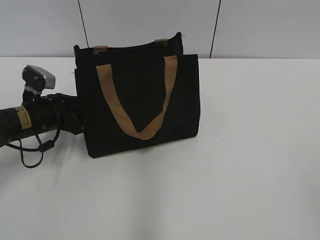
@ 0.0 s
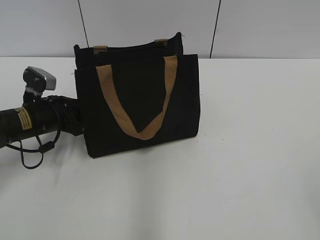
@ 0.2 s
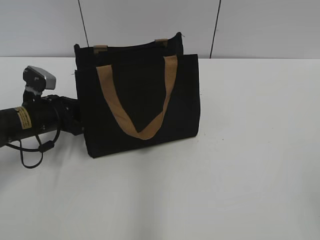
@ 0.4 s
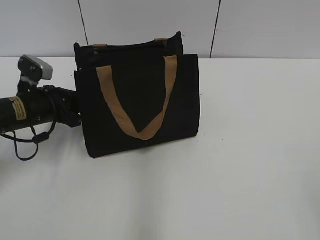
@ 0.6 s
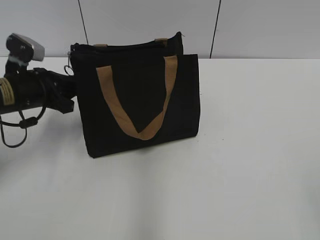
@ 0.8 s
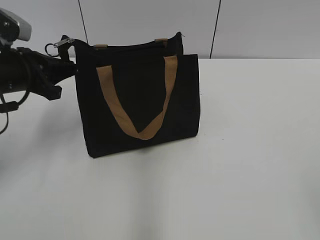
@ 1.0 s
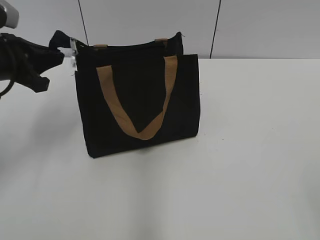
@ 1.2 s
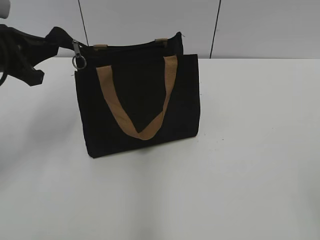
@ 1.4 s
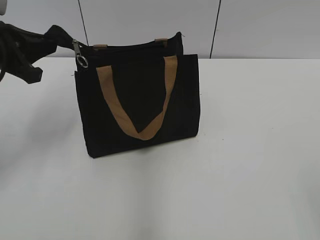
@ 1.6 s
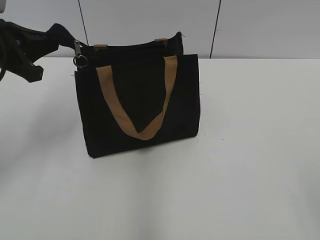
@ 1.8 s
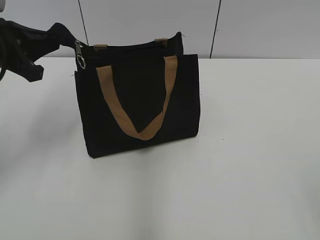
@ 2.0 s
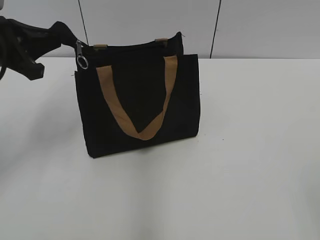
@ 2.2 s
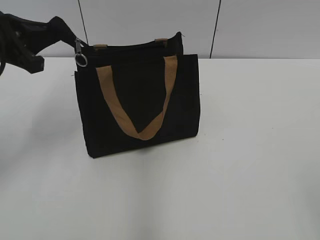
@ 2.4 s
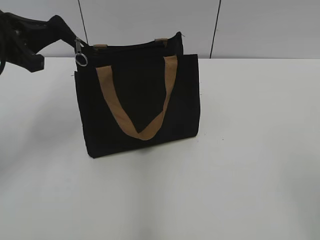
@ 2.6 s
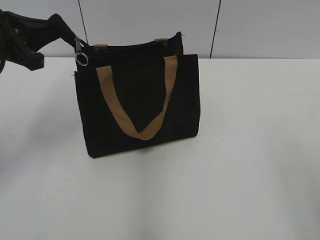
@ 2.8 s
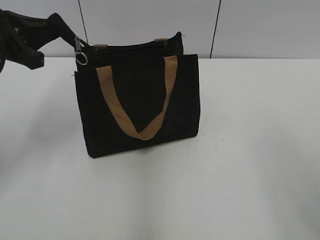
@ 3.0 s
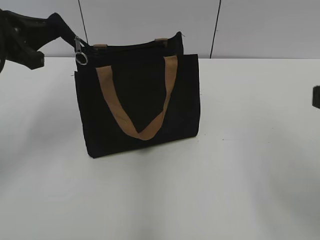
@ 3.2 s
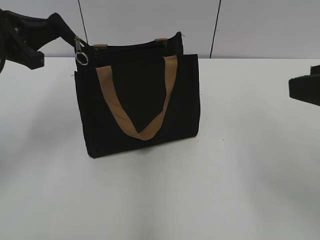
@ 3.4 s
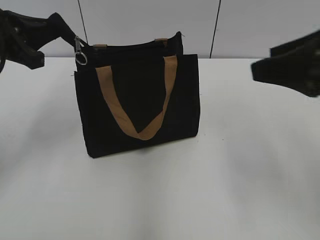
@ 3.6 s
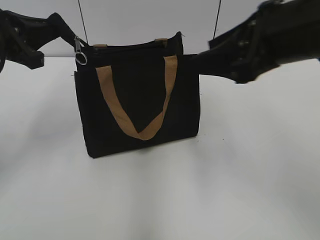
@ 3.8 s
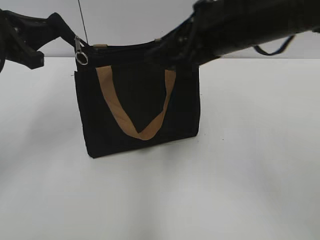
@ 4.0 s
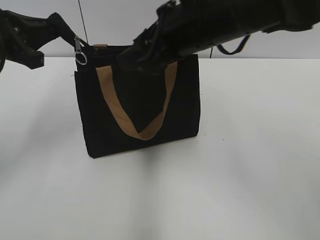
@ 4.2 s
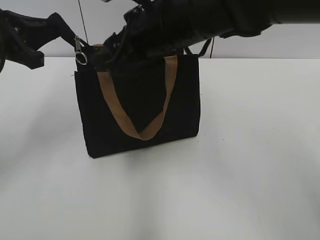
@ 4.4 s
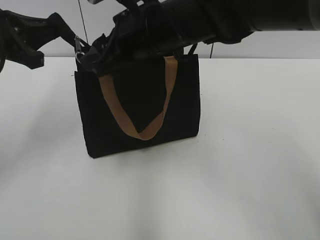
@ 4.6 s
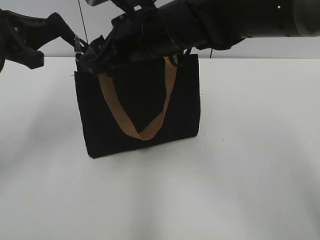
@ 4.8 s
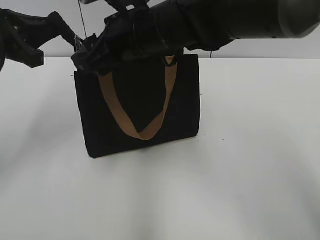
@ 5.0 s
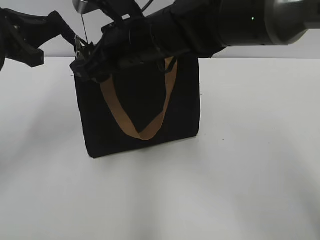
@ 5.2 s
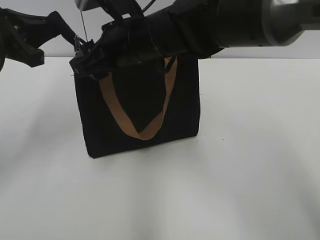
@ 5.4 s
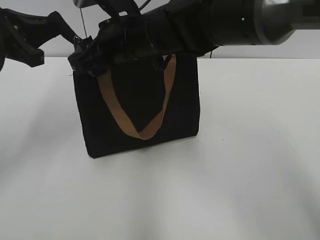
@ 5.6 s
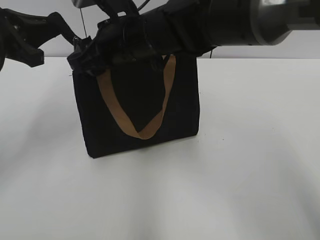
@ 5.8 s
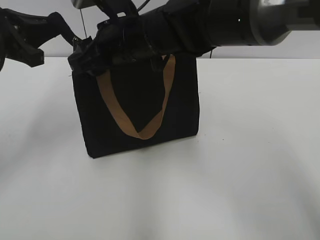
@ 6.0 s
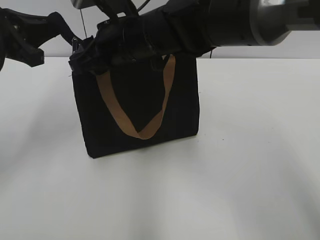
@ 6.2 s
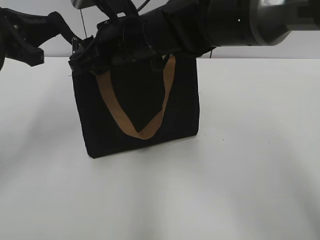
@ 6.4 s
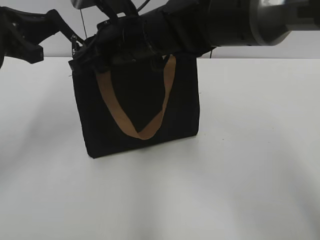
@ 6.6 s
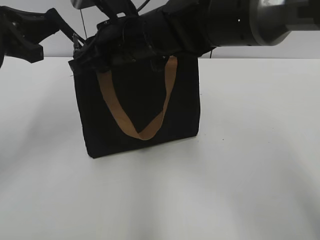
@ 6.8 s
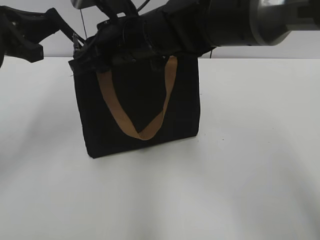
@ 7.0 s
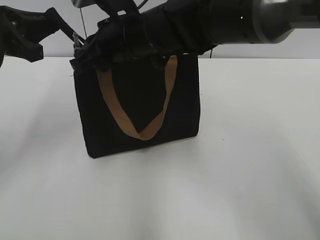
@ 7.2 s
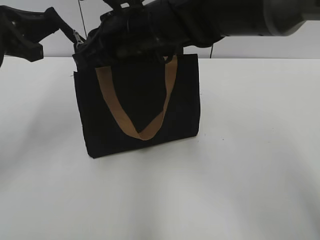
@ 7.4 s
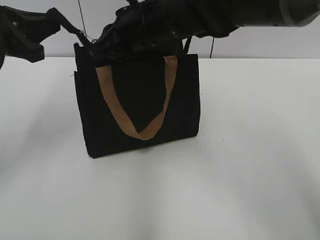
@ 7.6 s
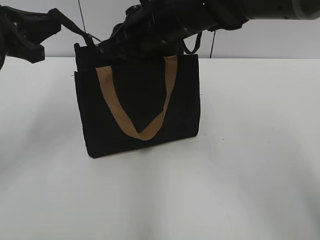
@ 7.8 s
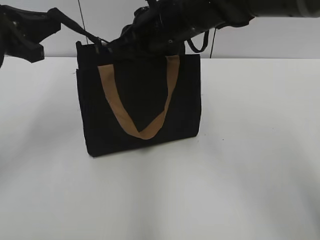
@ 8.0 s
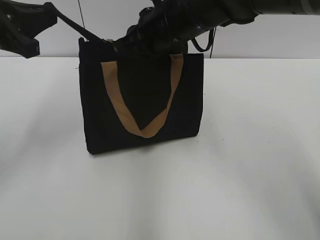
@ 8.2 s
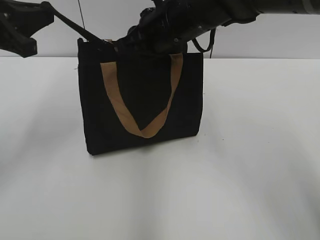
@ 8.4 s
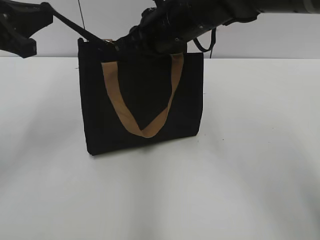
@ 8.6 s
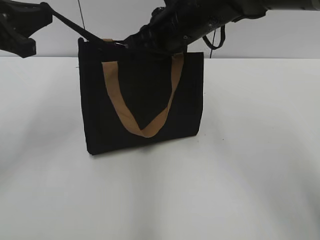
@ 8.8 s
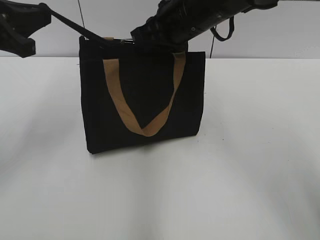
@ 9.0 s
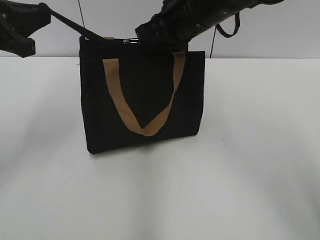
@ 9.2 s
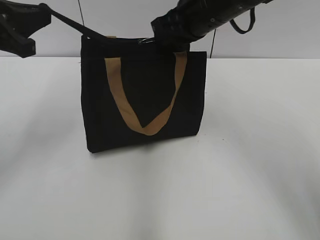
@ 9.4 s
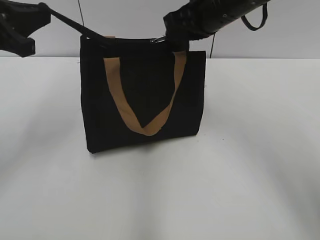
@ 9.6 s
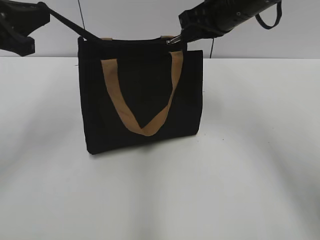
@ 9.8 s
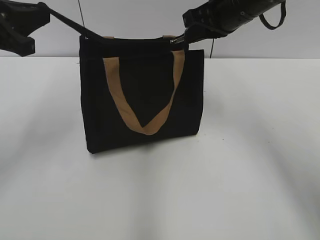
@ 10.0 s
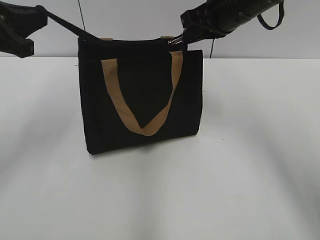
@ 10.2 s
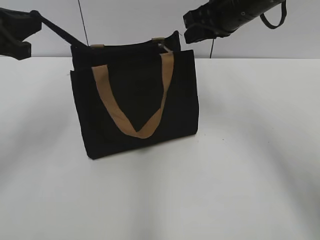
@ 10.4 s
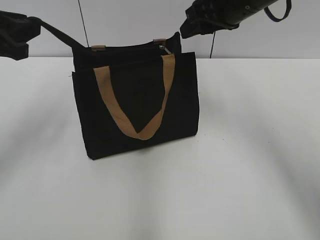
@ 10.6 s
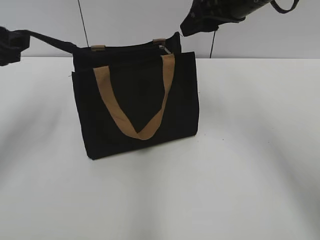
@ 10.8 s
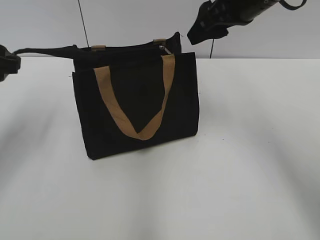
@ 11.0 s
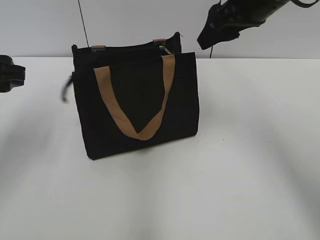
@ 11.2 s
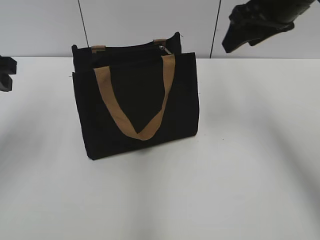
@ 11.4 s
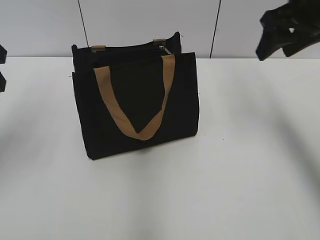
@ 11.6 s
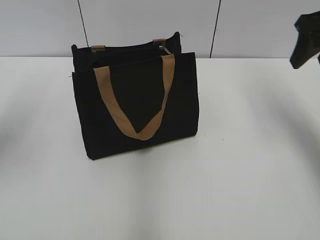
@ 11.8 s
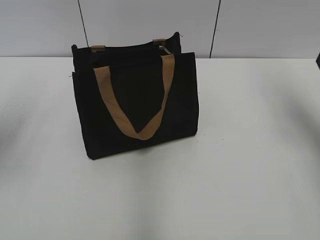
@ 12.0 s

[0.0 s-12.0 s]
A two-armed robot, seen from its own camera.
Step, 0.0 to 10.2 s: Zip up the bag with your right hand.
Step, 10.6 to 11.0 s: Grab the zipper with your left hand.
0.0 to 1.6 s: The left gripper goes about 15 cm upward, and closes its fingers.
3.0 to 4.4 s: The right gripper travels forward and to the left by some 35 cm.
4.4 to 6.0 s: The right gripper changes place by some 5 cm.
6.0 to 7.6 s: The right gripper closes its fingers.
7.6 to 9.0 s: The right gripper heads to the right, covering approximately 5 cm.
9.0 to 10.4 s: The right gripper travels to the right by about 5 cm.
10.4 to 12.0 s: The left gripper opens; the right gripper shifts about 20 cm to the right, and opens its fingers.

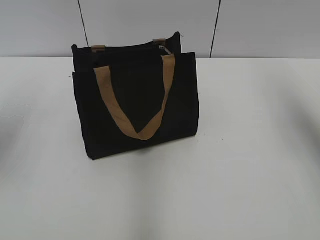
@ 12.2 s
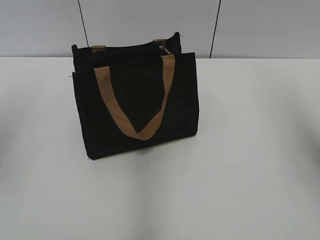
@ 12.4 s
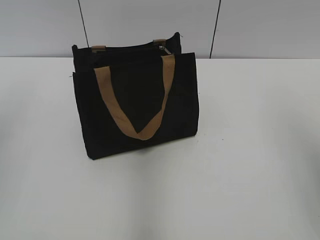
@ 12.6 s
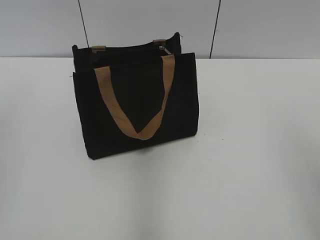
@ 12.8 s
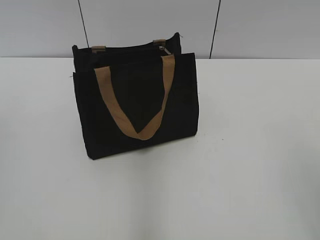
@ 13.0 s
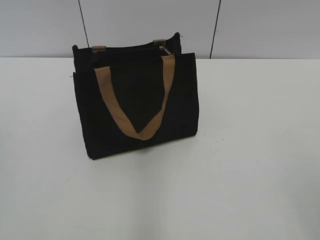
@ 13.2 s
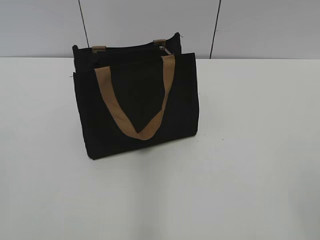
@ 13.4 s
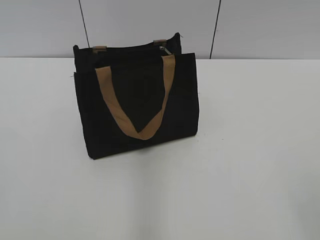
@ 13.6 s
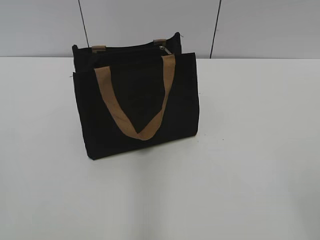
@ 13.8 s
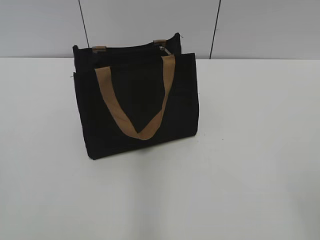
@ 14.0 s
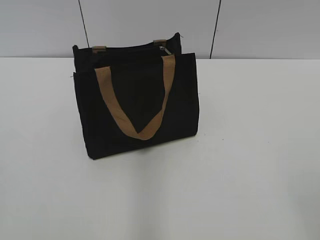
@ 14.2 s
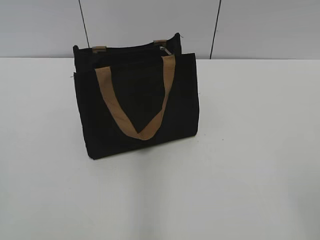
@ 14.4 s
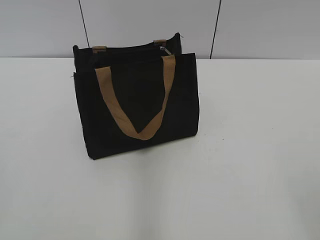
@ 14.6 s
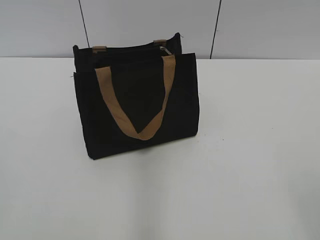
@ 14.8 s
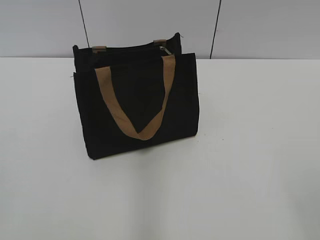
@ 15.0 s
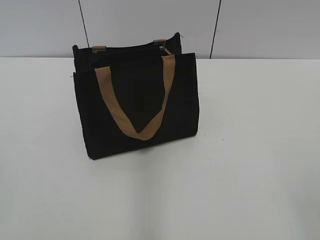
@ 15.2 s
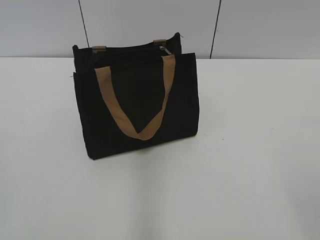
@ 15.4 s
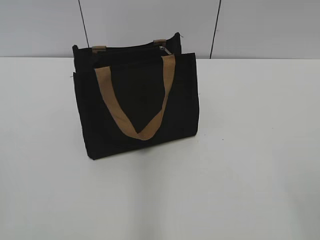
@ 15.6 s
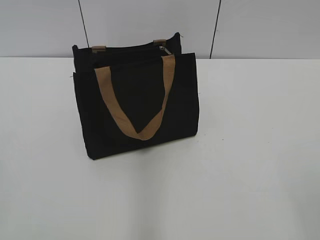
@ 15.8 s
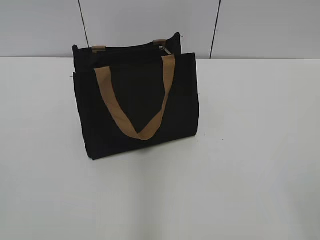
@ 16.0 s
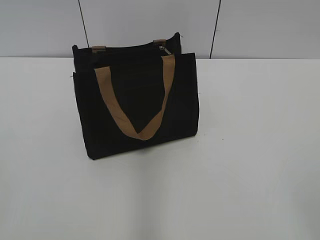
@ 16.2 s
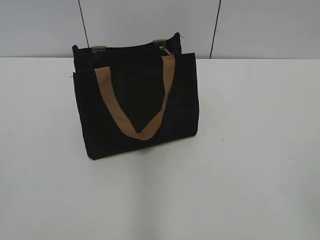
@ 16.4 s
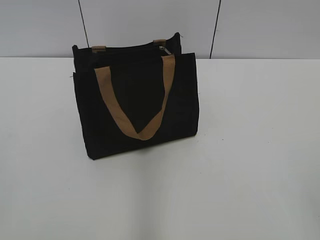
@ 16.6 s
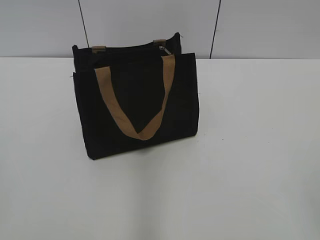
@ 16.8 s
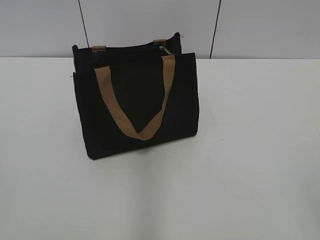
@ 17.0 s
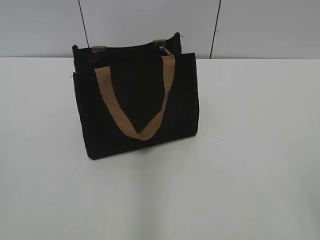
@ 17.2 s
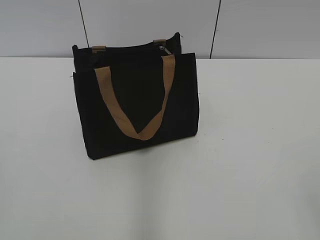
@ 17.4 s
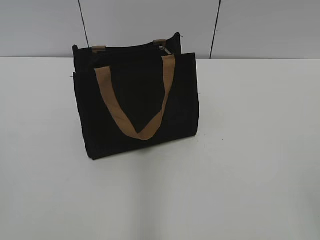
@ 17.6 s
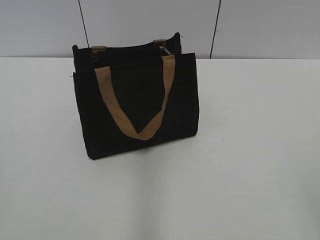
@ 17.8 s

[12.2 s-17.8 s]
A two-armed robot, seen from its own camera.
12.2 to 13.6 s: The grippers both shift backward by some 30 cm.
16.4 to 17.8 s: Both grippers stay about where they are.
